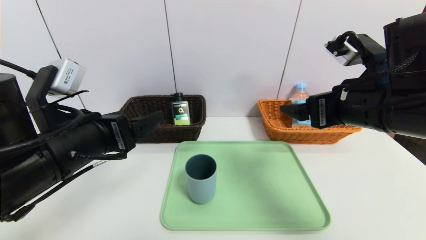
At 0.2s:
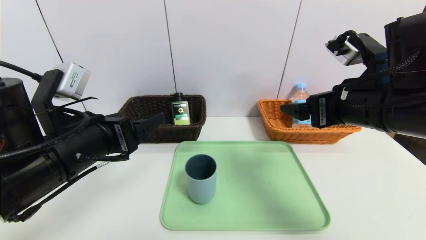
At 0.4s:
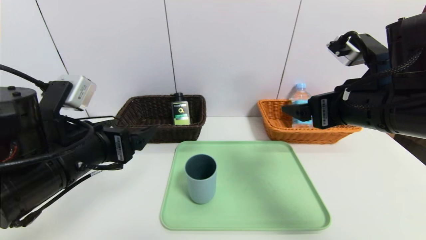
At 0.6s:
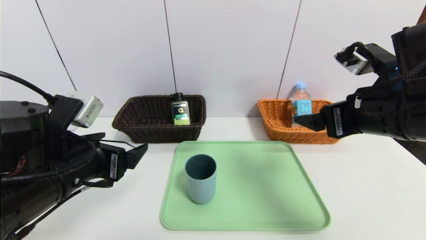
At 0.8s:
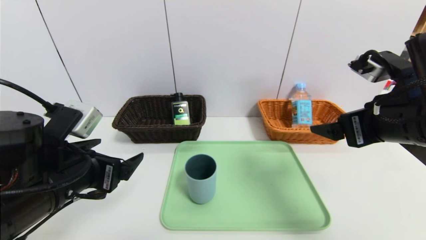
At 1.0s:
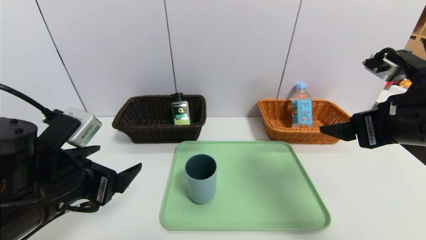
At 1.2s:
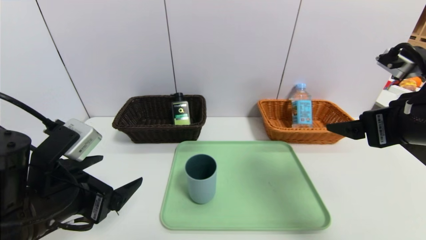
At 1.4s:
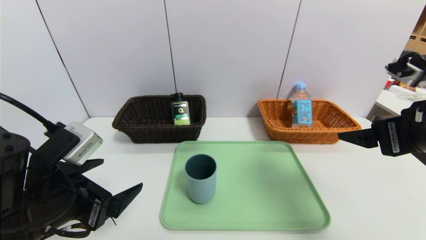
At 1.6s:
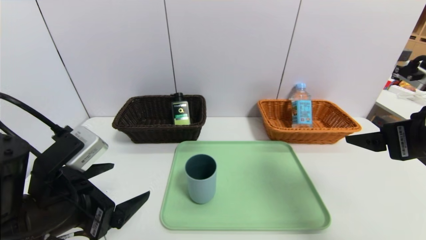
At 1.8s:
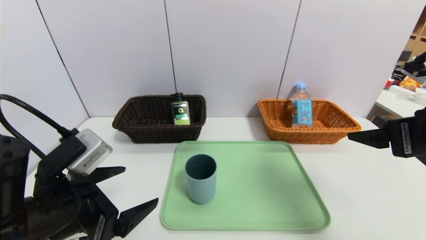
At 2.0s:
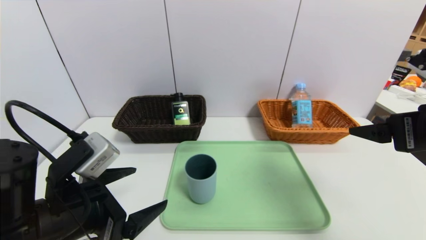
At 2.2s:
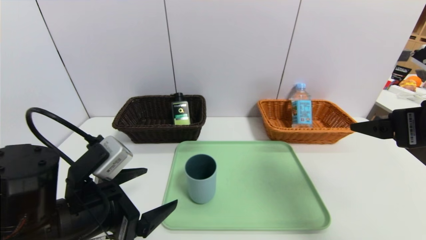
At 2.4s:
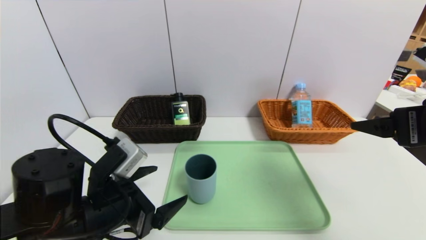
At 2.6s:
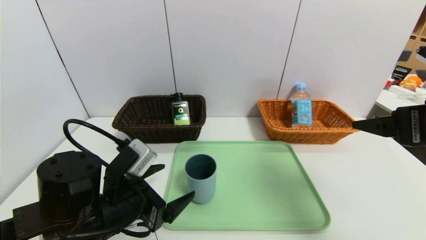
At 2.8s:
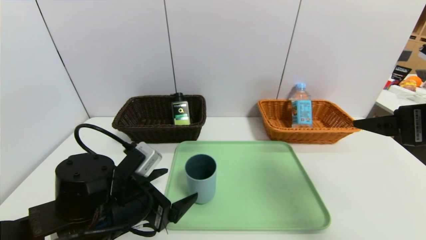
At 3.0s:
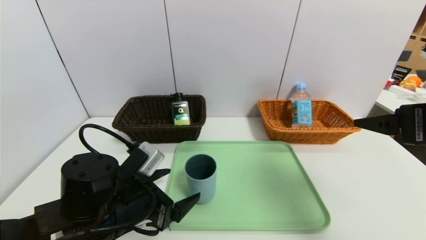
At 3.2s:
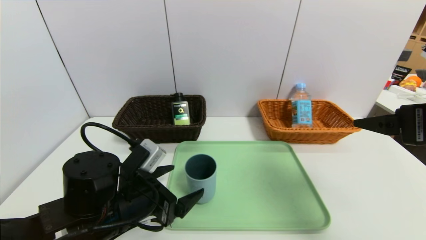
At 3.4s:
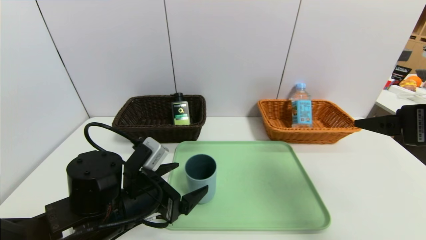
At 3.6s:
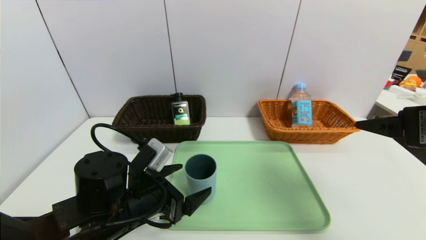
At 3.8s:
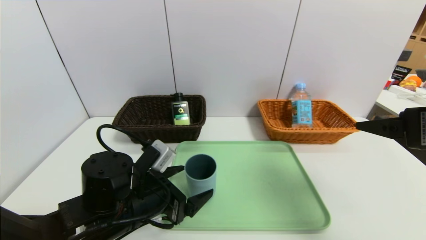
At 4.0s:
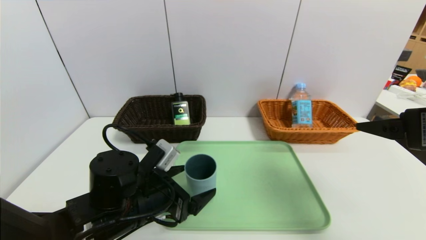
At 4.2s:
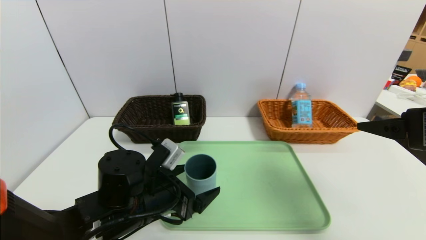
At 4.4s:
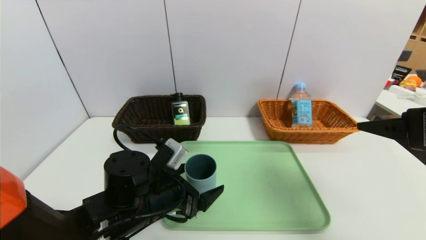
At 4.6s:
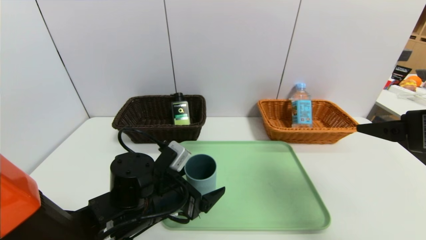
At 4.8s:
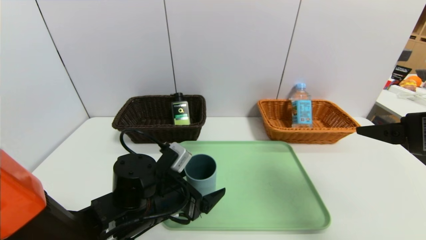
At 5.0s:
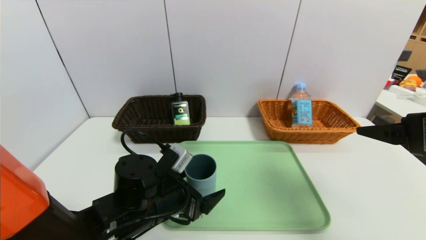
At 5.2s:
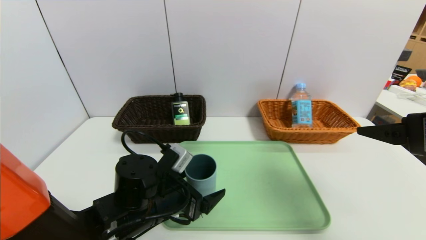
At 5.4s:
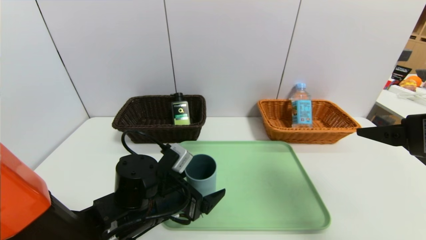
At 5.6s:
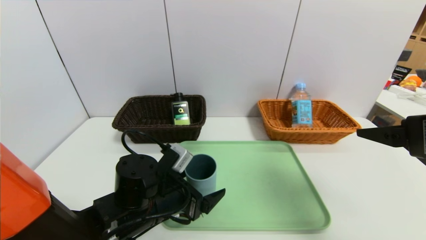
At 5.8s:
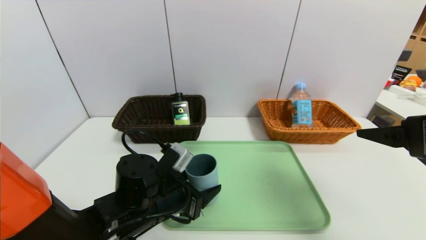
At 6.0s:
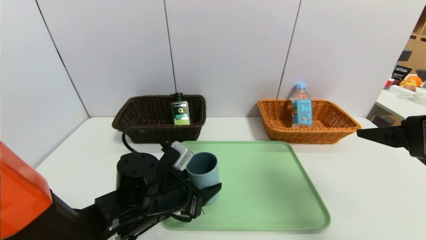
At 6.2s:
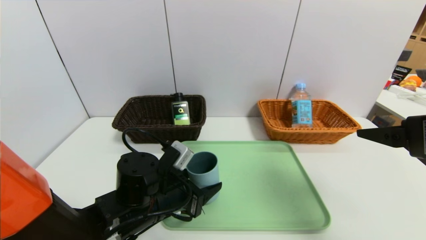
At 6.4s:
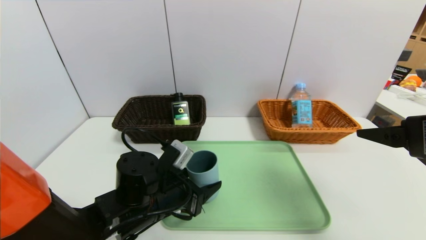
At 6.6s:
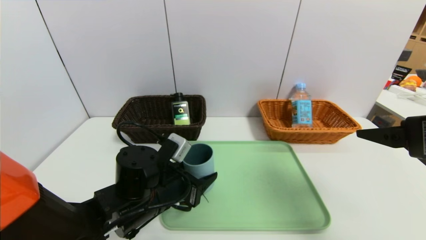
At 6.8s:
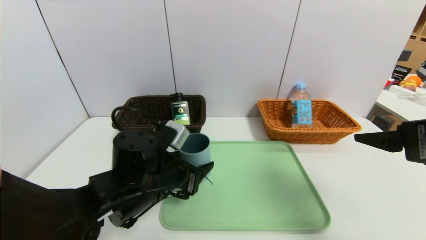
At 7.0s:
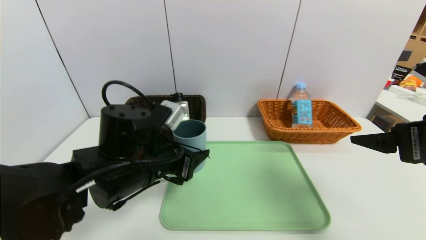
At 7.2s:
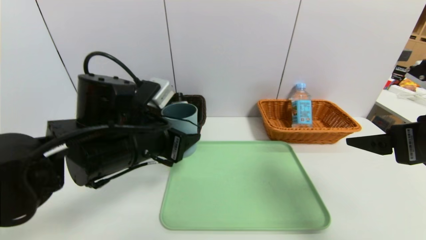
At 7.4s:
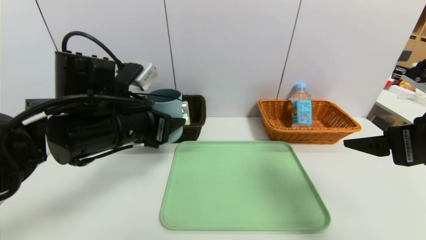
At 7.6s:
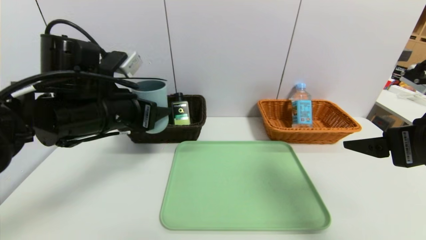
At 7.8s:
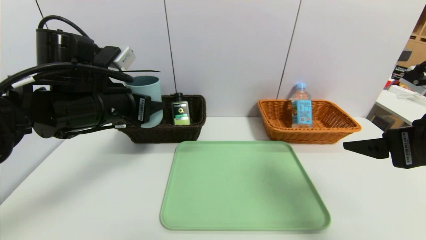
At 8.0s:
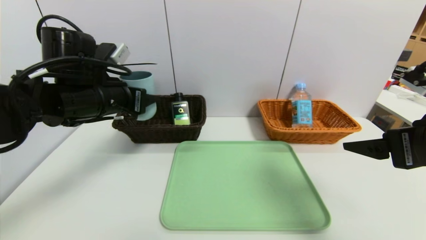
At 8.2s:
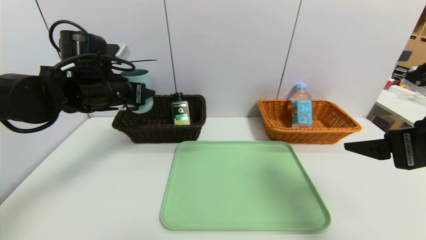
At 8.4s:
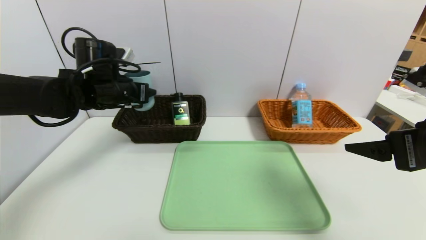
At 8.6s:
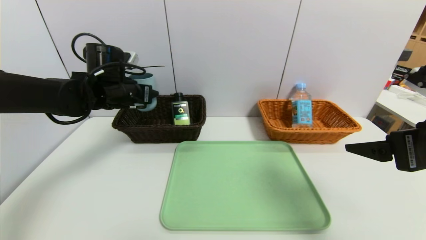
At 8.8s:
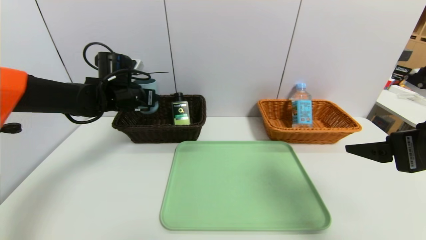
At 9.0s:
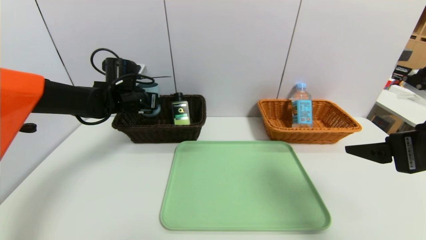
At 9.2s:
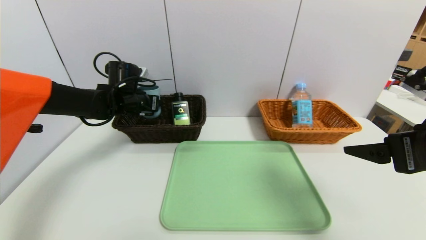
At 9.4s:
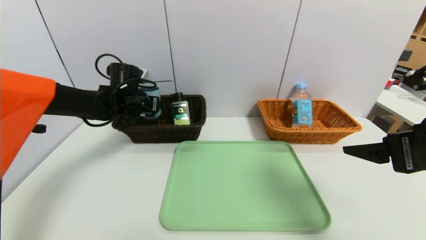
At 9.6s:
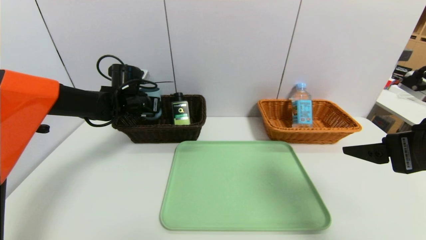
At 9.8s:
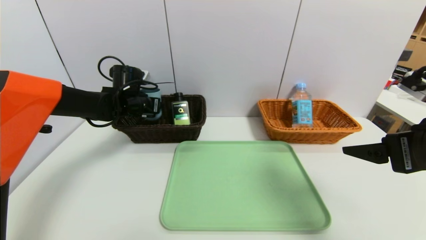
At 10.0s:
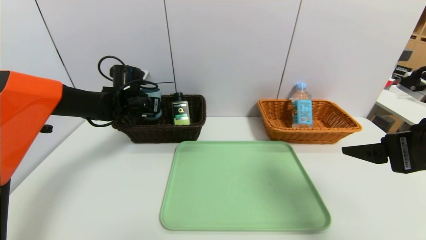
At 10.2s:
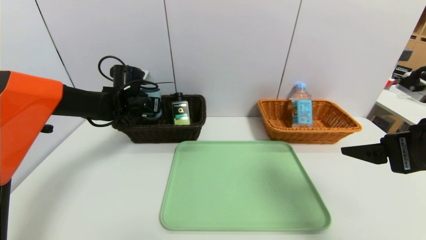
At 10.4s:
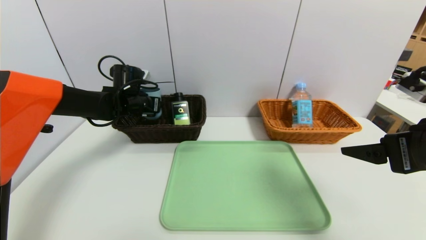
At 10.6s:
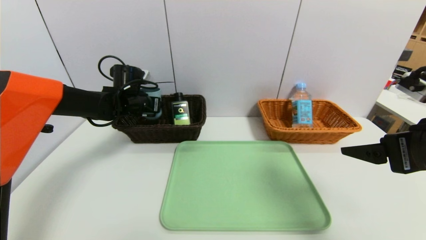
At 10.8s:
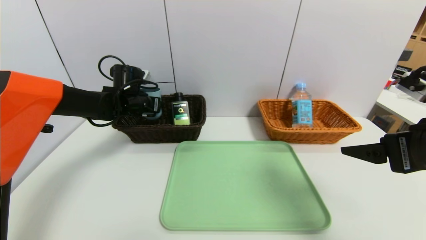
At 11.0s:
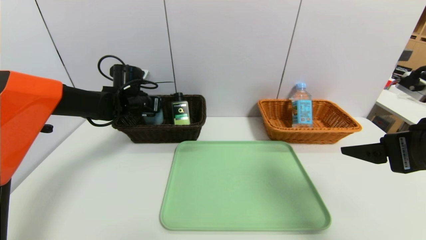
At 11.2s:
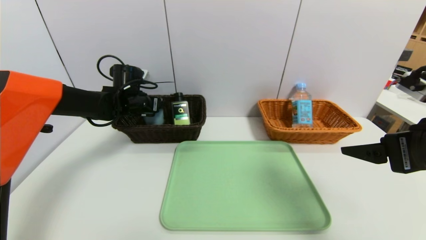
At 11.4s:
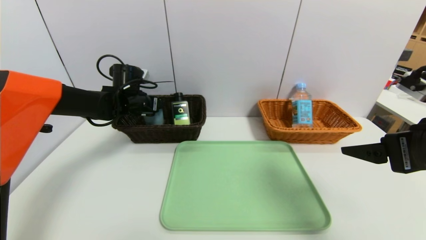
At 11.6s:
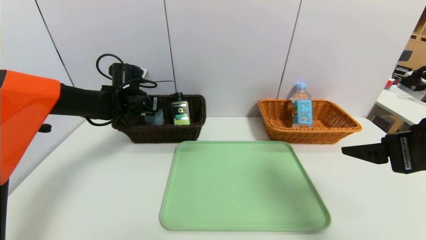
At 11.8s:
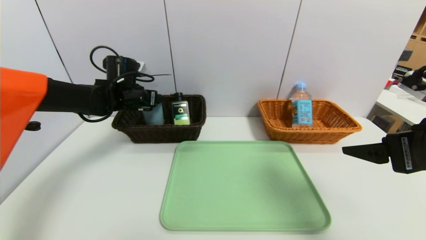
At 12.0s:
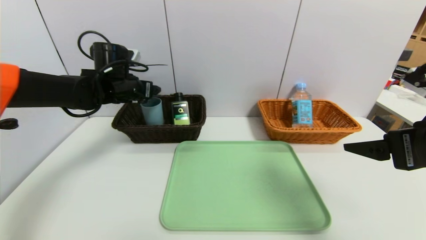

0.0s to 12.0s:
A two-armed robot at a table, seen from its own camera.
Task of the whole recording: place the food in the right basket with the right gripper, and place the non food items in the left basket with the left gripper.
Step, 0.0s to 11.2s: Grasp the blue cup and put it in the left basket.
0.0s to 1.6s: The left gripper moves about 5 cm, while the right gripper heads to the right, covering about 5 cm.
1.6s to 3.0s: The left gripper goes about 10 cm downward and to the right.
3.0s to 4.4s: The left gripper shifts by roughly 5 cm.
4.4s to 6.0s: The left gripper closes its fingers.
6.0s to 7.6s: The left gripper moves upward and to the left, approximately 15 cm.
7.6s to 9.0s: The left gripper is displaced forward by approximately 20 cm.
9.0s to 10.4s: There are only small adjustments of the grippers.
10.4s to 12.0s: The left gripper goes roughly 5 cm upward, and opens.

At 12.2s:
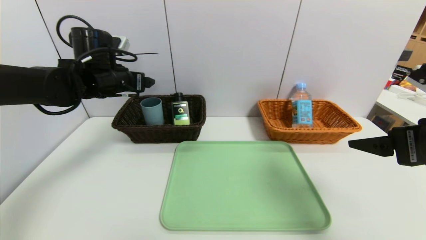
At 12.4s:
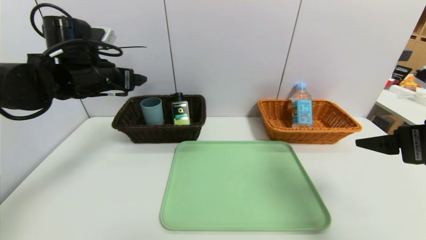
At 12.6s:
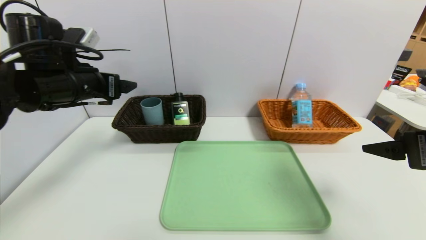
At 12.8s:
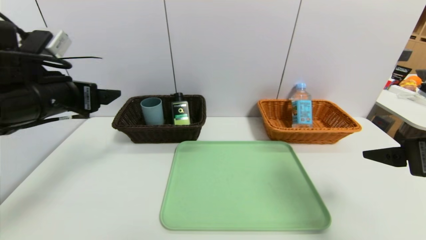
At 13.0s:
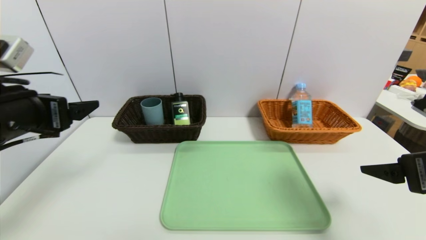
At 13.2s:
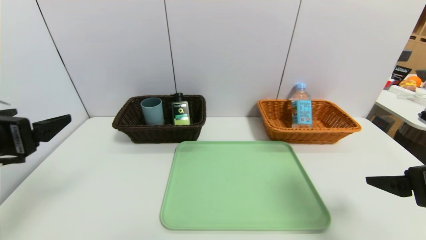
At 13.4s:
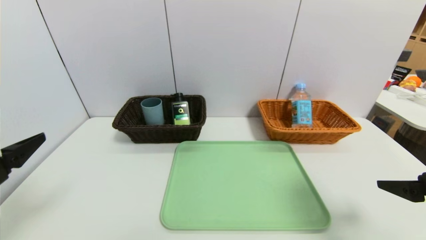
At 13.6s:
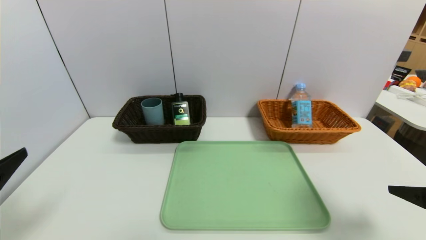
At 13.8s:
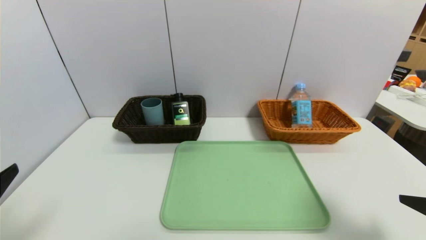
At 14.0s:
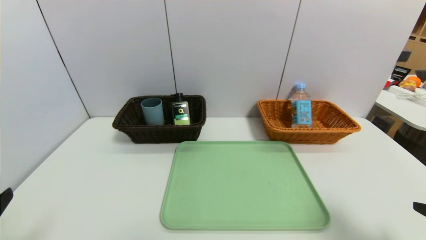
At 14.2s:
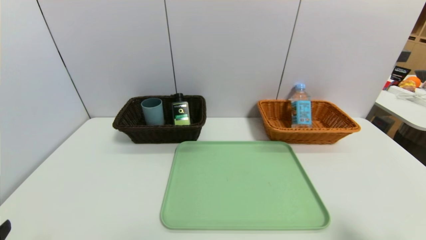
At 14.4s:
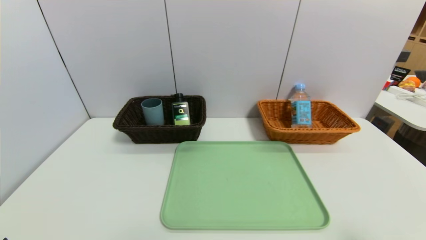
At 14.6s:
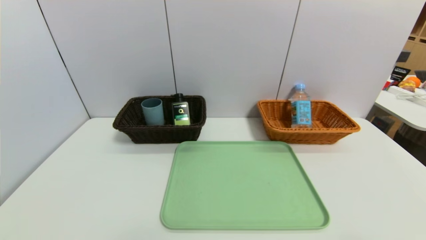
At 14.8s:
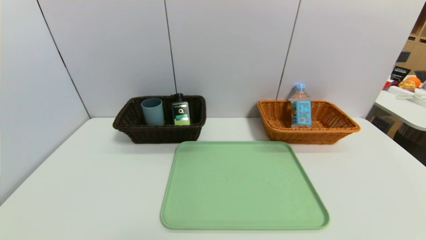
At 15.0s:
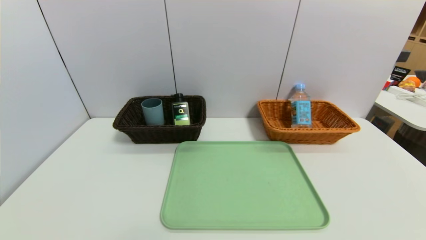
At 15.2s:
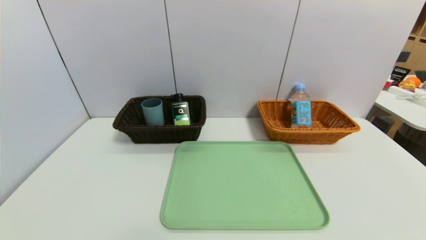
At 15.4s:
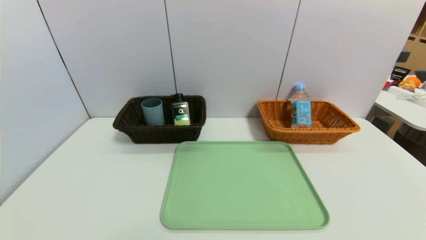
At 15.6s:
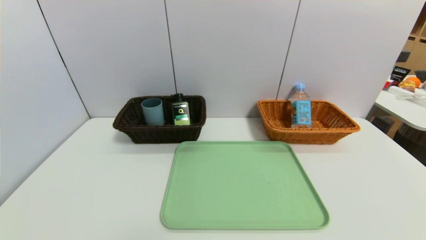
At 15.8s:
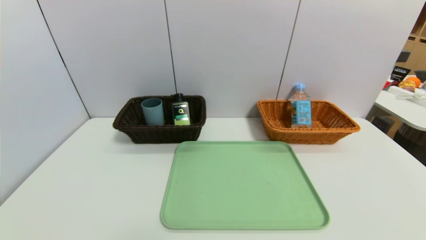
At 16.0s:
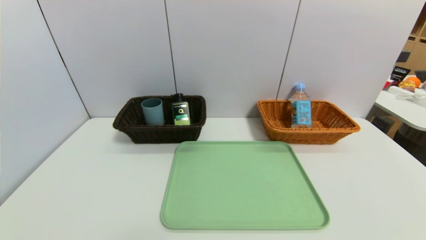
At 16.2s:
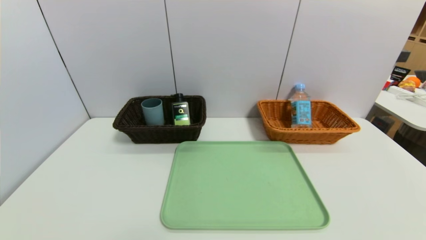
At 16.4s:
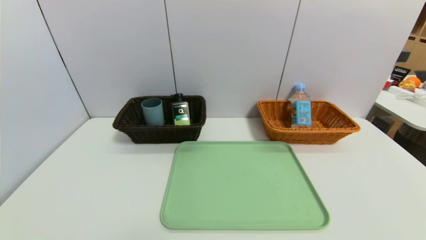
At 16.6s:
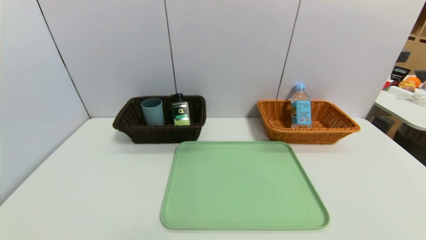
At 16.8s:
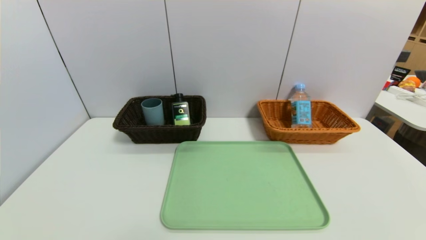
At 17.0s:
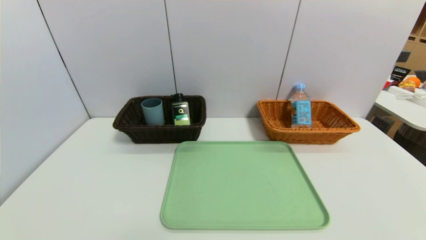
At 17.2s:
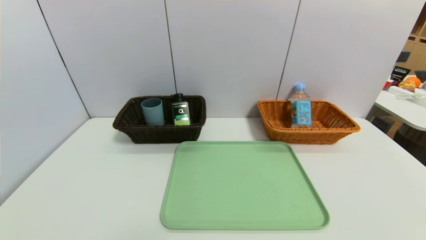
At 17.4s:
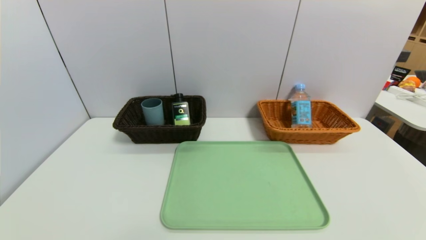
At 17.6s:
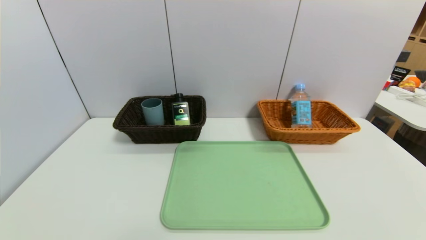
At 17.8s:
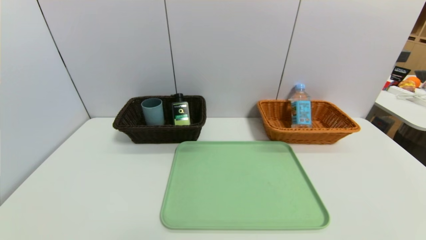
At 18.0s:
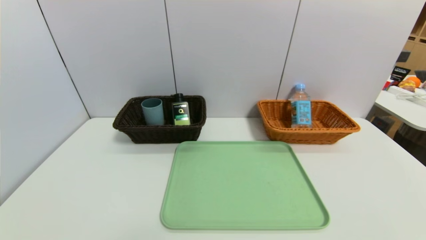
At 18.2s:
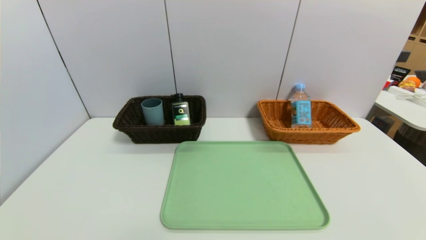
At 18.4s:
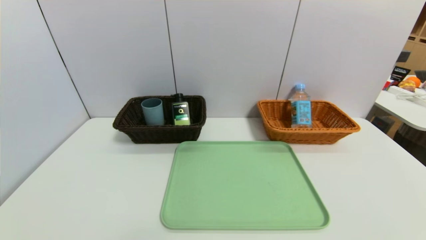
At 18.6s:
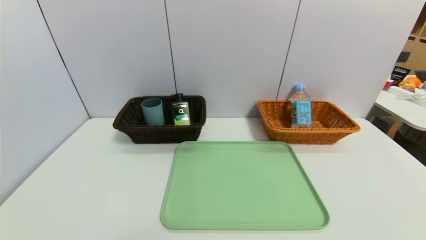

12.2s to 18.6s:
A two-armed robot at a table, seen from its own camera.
Task of the whole recording: place the food in the right basket with the right gripper, and place the non food items in the left basket with the left gripper.
12.2s to 13.8s: The left gripper moves backward, some 35 cm; the right gripper goes some 10 cm backward and downward.
13.8s to 15.4s: The right gripper travels backward by roughly 15 cm; the left gripper is displaced backward and downward by roughly 10 cm.
